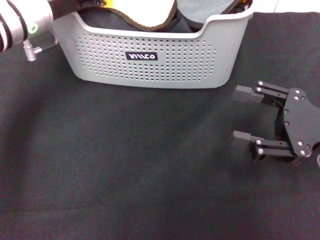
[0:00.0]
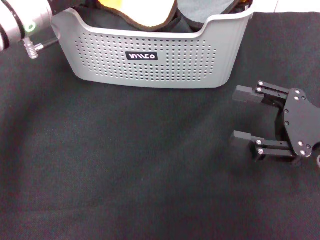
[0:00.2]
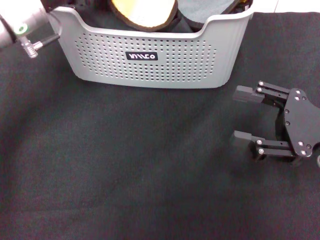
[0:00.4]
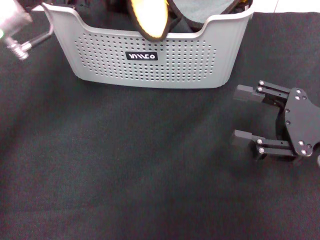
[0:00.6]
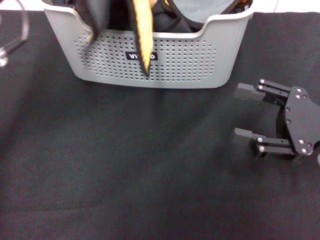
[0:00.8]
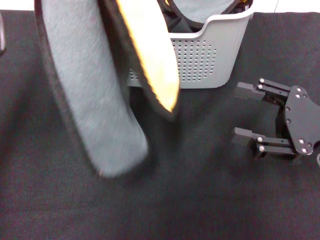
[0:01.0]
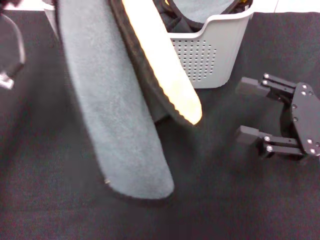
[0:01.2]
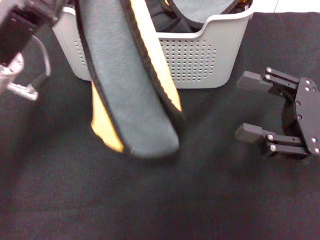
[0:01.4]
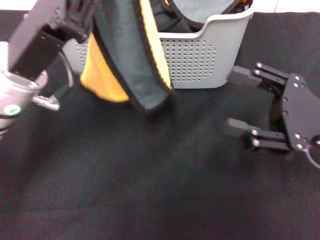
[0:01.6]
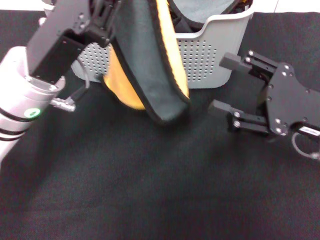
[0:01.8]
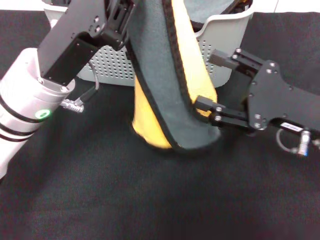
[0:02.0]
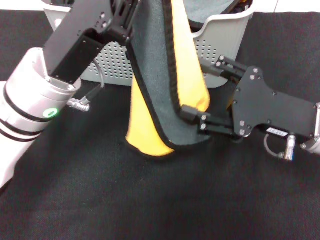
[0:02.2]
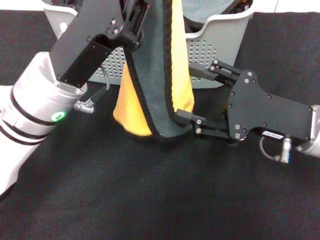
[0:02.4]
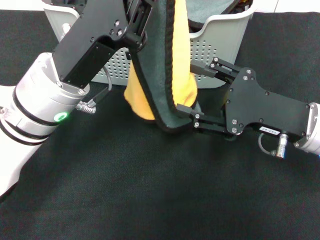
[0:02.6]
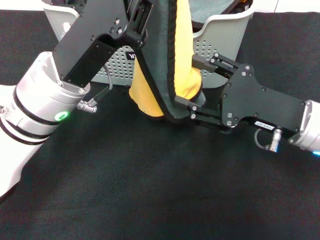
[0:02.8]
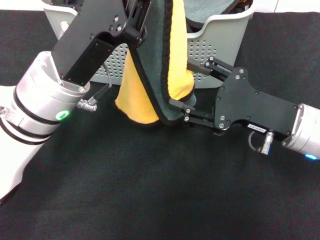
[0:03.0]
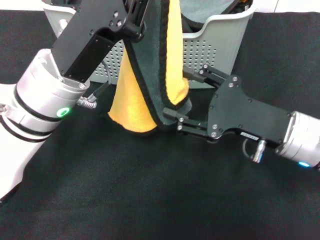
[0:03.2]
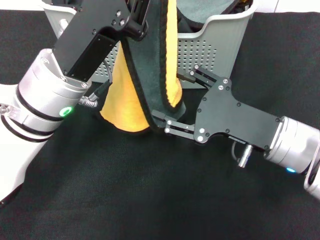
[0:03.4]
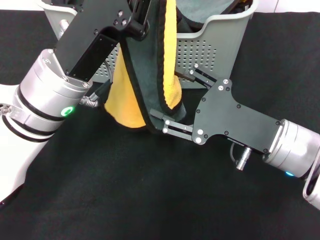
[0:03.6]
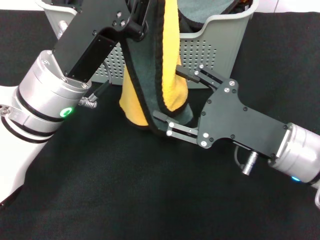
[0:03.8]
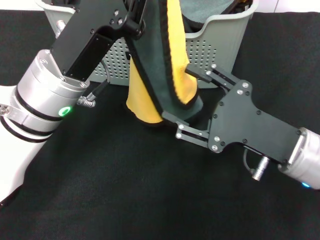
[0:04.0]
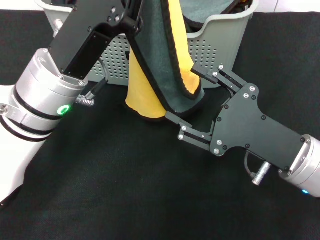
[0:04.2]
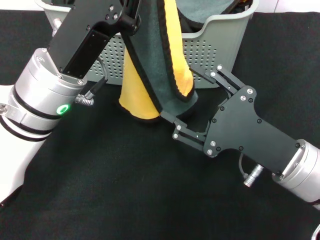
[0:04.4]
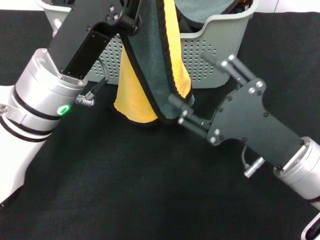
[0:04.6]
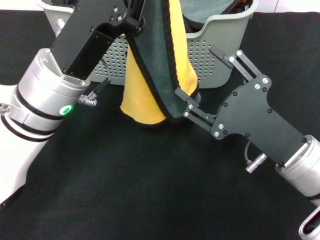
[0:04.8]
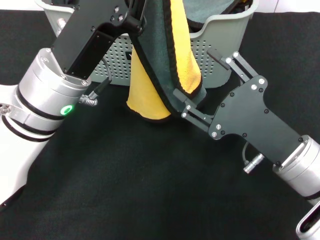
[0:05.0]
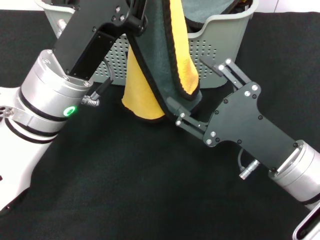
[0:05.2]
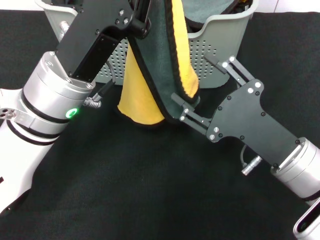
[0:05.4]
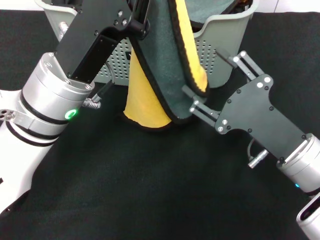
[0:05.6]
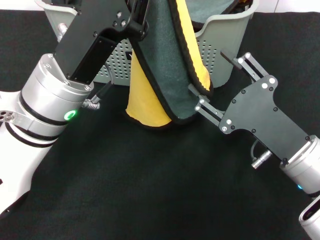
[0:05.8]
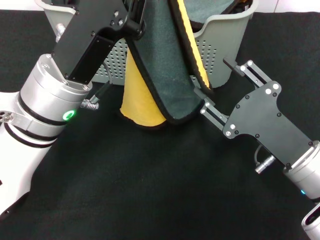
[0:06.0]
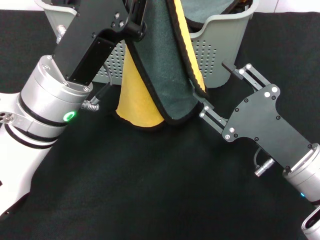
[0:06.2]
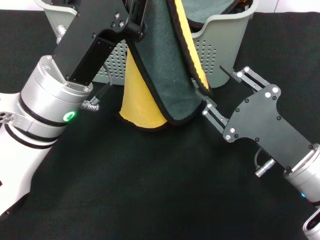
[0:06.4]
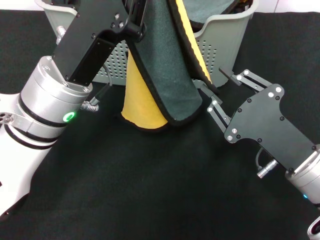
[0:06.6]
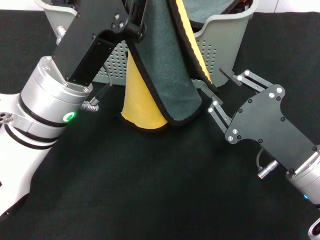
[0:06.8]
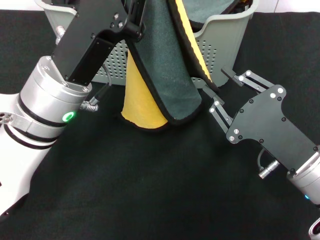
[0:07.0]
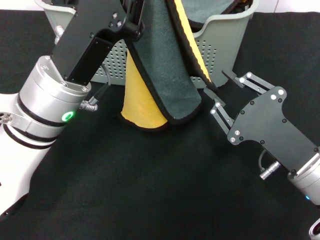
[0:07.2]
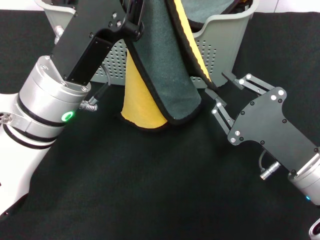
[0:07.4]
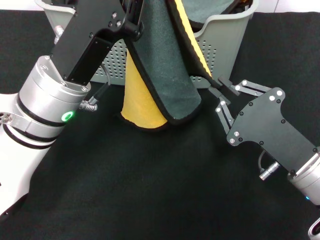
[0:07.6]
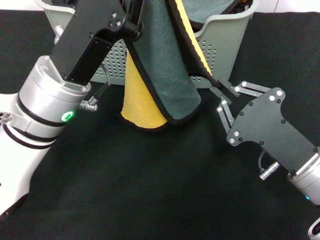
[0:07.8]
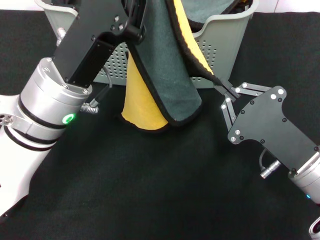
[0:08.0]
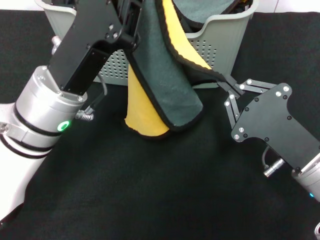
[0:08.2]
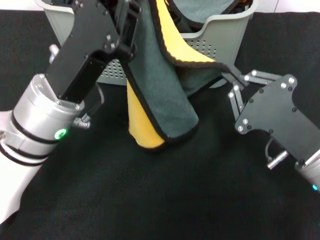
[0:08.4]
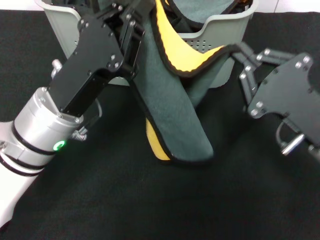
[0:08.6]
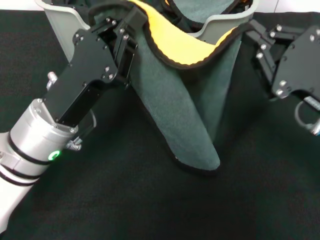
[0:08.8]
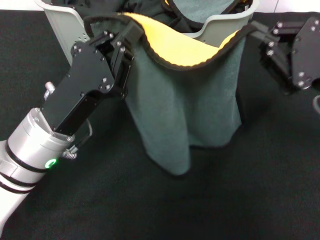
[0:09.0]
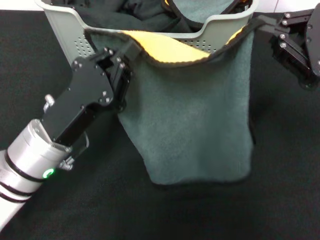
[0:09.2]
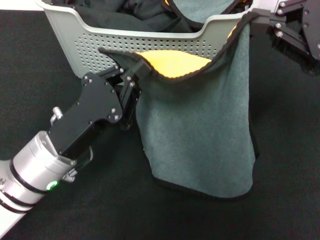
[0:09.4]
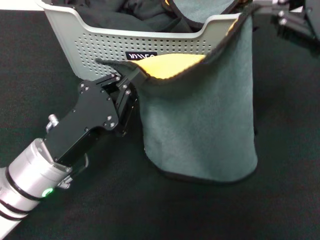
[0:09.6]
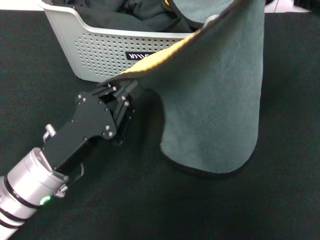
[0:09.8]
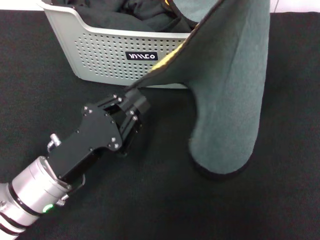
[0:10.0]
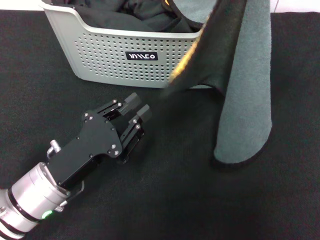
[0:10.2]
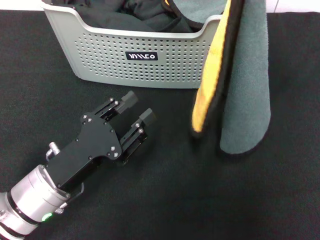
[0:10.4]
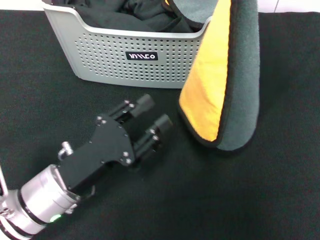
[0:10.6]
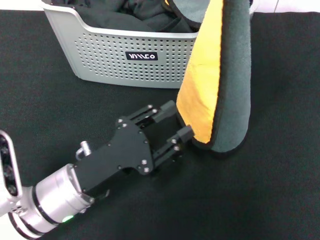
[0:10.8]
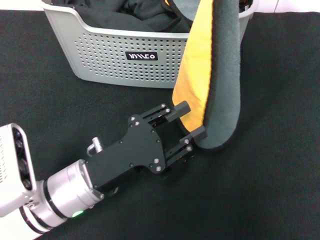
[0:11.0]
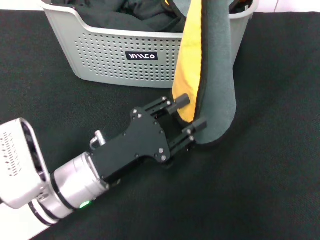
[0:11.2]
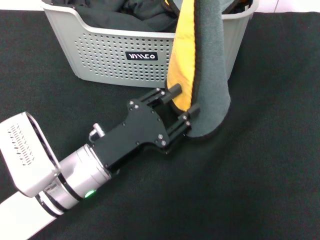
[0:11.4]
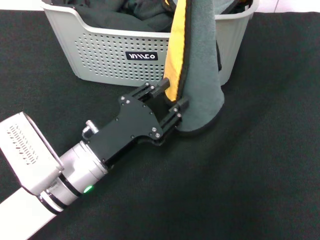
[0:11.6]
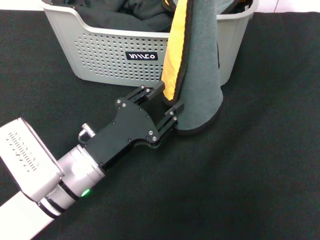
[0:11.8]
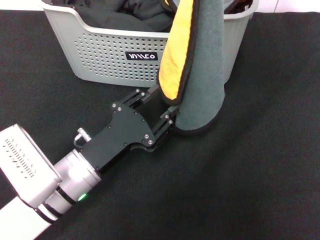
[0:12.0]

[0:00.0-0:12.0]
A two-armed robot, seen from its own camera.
Task of the whole recording: pick up the towel from the storage box and lay it flat on the black tablecloth.
Step, 0:00.0 to 0:07.8: Spread the towel flat with the left gripper.
0:00.0 to 0:01.6: The left gripper shifts about 10 cm backward.
0:01.6 to 0:03.0: The right gripper travels to the left by about 5 cm.
0:03.0 to 0:04.4: The right gripper travels backward by approximately 5 cm.
0:06.0 to 0:07.6: The right gripper closes.
0:07.6 to 0:09.0: The right gripper shifts about 15 cm upward, forward and to the right. The left gripper changes place by roughly 5 cm.
0:09.0 to 0:10.4: The left gripper goes roughly 5 cm downward, and opens its fingers; the right gripper is displaced upward by approximately 20 cm.

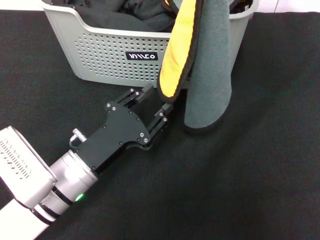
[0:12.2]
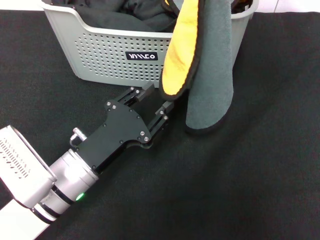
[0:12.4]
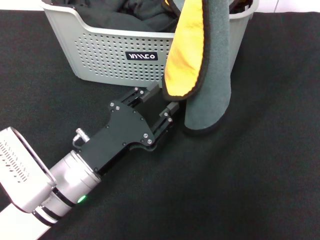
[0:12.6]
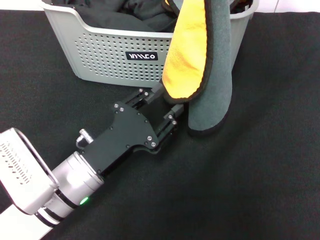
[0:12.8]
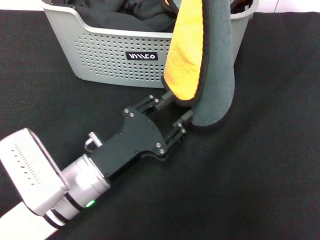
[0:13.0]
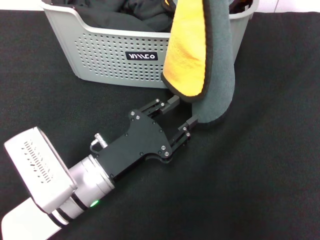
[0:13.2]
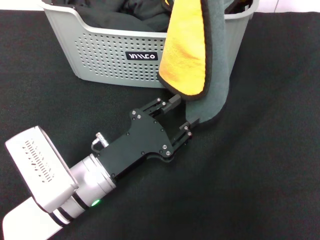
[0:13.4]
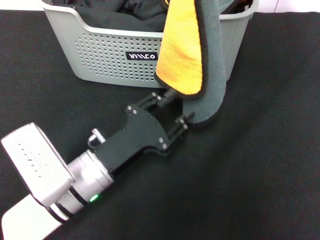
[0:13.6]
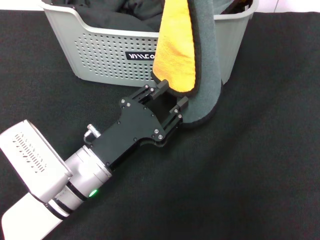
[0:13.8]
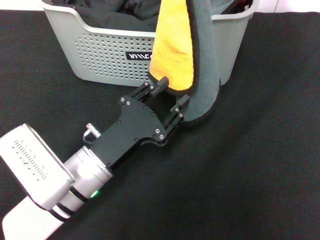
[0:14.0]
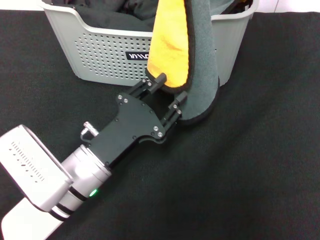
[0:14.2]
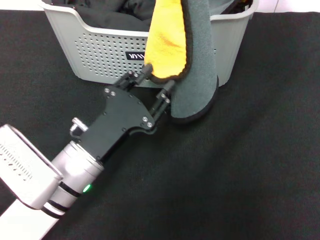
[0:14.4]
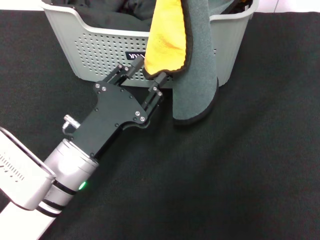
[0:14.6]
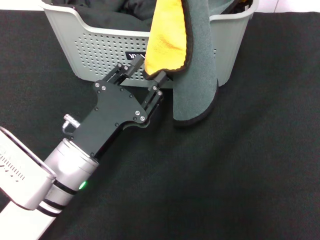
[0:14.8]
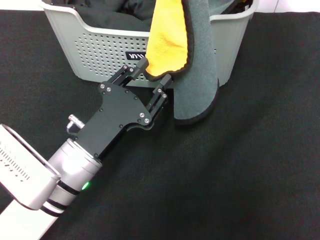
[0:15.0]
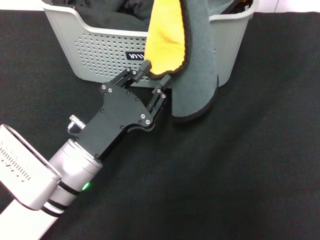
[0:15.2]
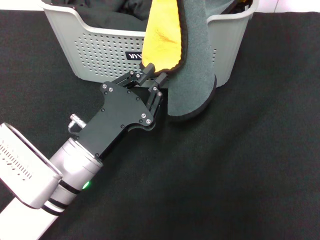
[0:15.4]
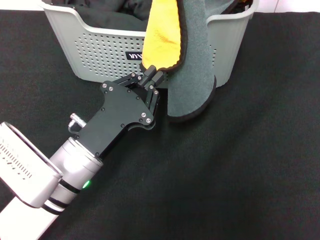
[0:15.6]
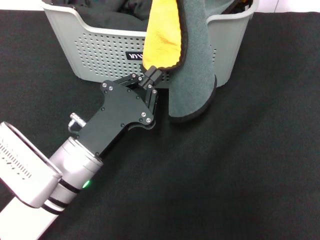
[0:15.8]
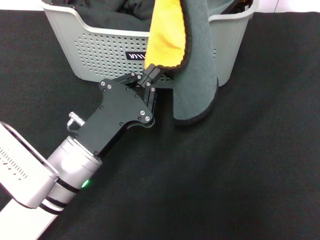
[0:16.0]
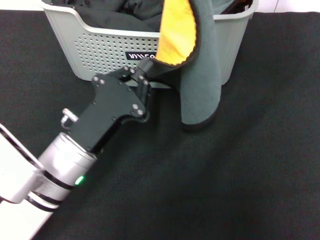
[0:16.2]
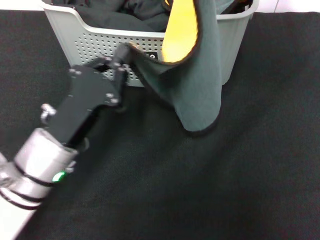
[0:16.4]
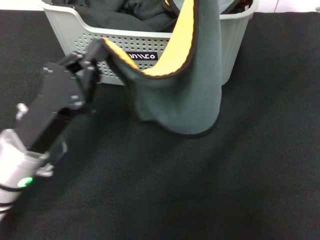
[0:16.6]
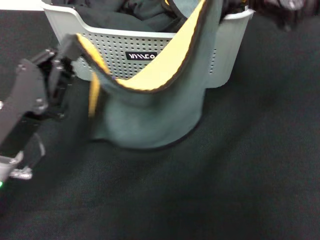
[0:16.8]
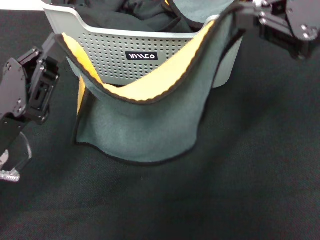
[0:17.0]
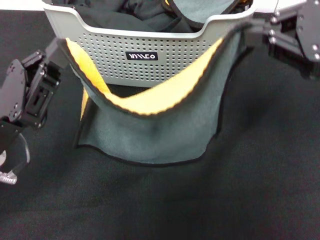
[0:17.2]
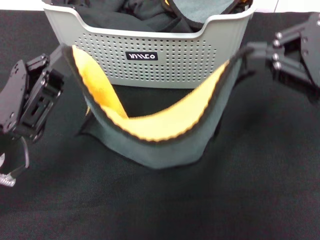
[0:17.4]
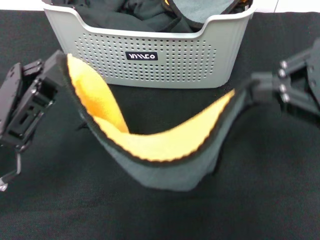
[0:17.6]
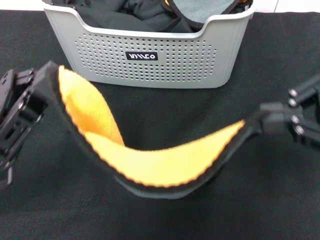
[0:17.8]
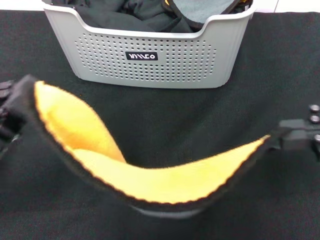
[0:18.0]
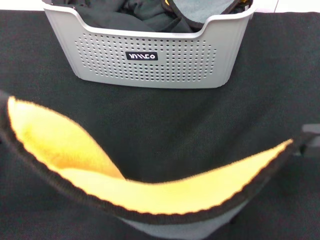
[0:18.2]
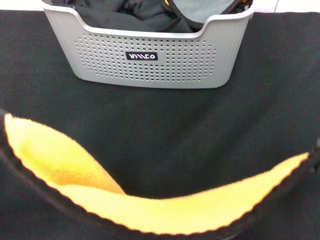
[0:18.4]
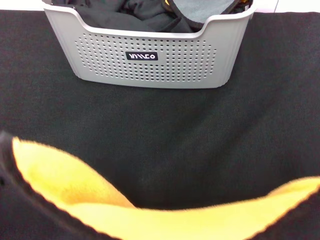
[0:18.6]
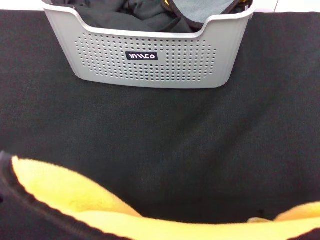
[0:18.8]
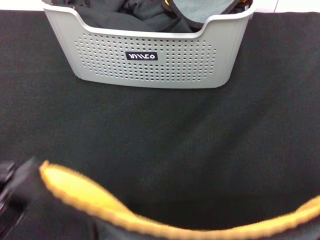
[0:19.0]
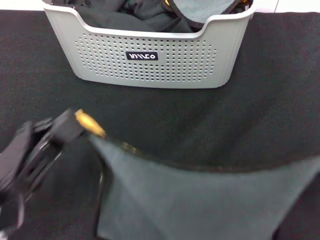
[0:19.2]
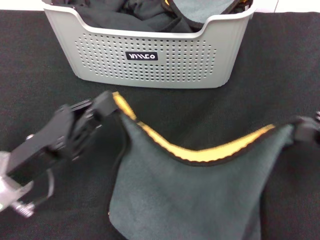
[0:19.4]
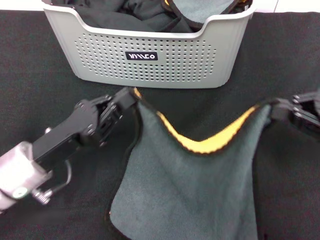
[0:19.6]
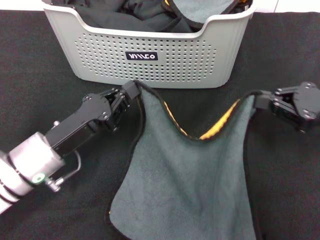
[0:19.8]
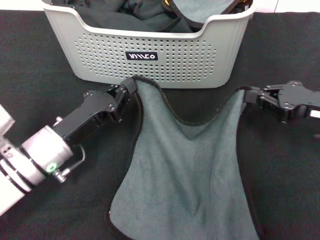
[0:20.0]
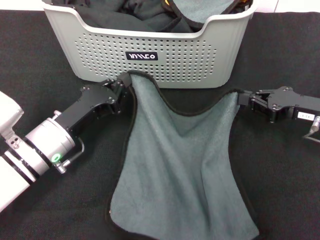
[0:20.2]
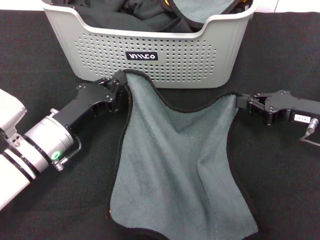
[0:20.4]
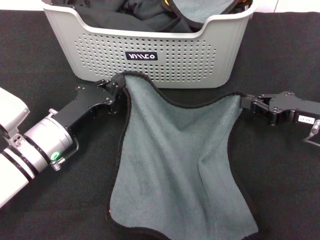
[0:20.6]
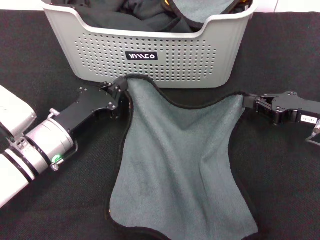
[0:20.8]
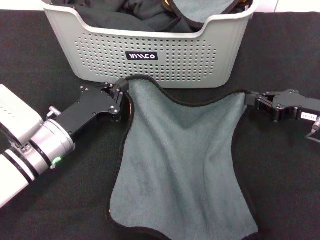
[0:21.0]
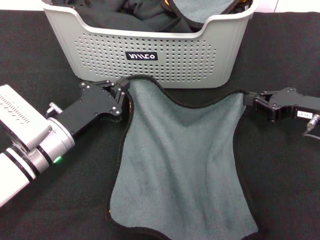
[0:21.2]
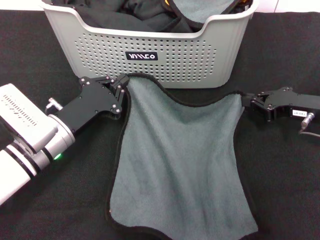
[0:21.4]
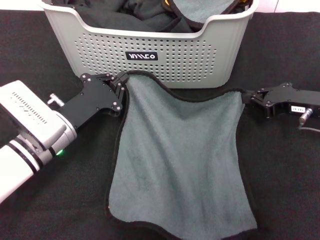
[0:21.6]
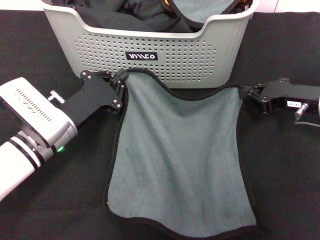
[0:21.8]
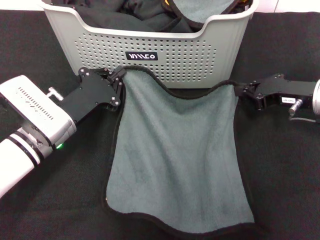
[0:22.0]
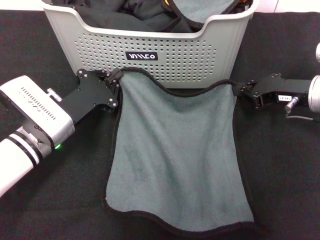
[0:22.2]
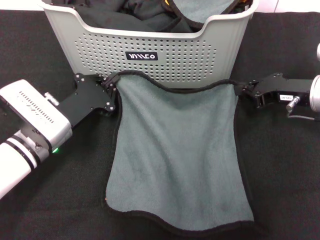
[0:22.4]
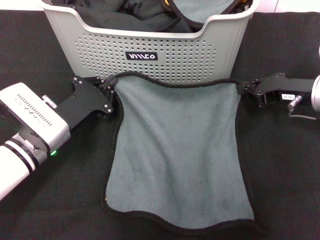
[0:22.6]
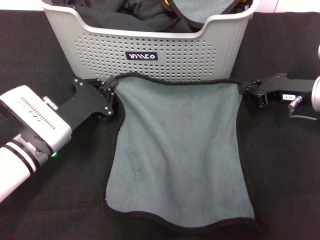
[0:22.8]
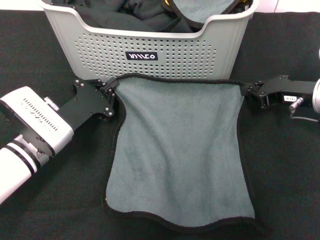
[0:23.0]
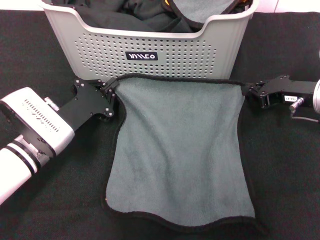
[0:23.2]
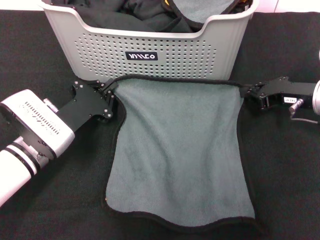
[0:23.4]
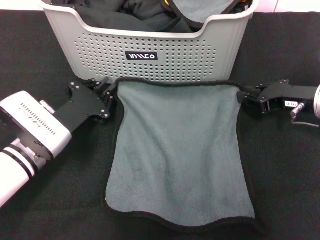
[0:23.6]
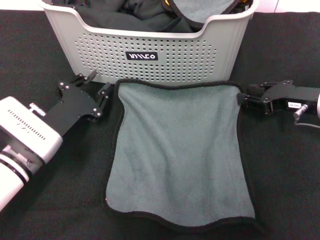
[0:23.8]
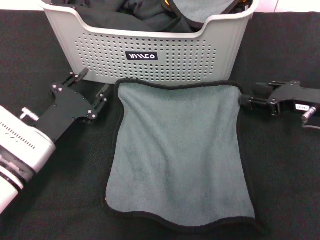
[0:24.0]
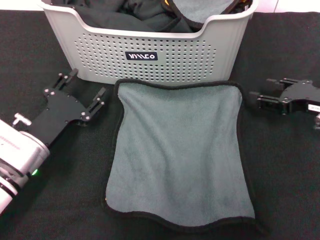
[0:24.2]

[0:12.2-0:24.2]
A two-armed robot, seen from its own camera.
Task of the whole recording: pick up the towel from the storage box and lay it flat on the black tablecloth.
Step, 0:12.2 to 0:23.6: Spread the towel flat with the right gripper.
0:12.2 to 0:15.2: The grippers move only a little.
0:15.2 to 0:16.6: The right gripper changes place by some 5 cm, while the left gripper shifts roughly 5 cm to the left, and closes its fingers.
0:16.6 to 0:18.2: The left gripper goes roughly 10 cm upward and to the left. Meanwhile the right gripper travels backward and to the right by some 15 cm.
0:18.2 to 0:19.8: The two grippers go about 15 cm downward and forward.
0:19.8 to 0:21.2: The right gripper ends up approximately 5 cm from where it was.
0:21.2 to 0:22.6: The grippers make only small movements.
0:22.6 to 0:24.2: The left gripper opens its fingers. The right gripper changes place by roughly 5 cm, and opens.
